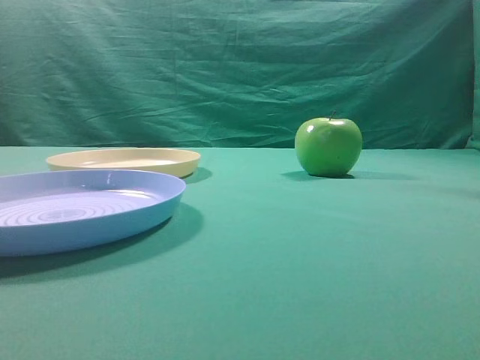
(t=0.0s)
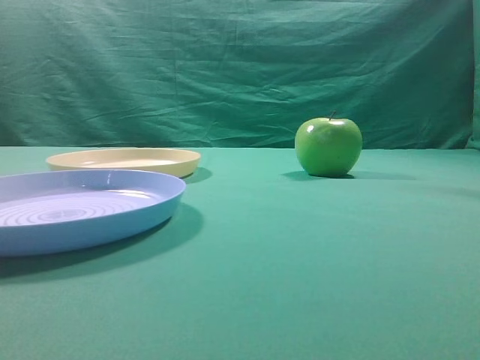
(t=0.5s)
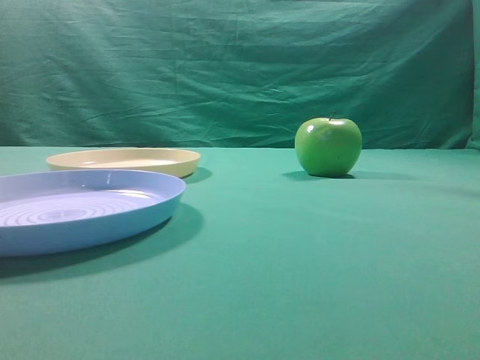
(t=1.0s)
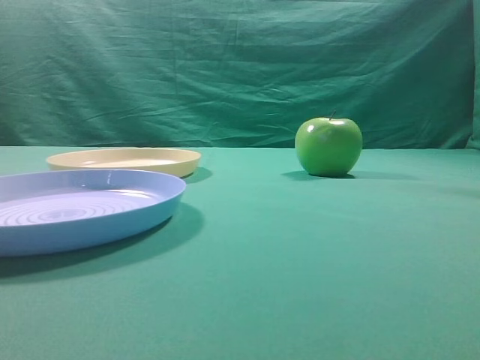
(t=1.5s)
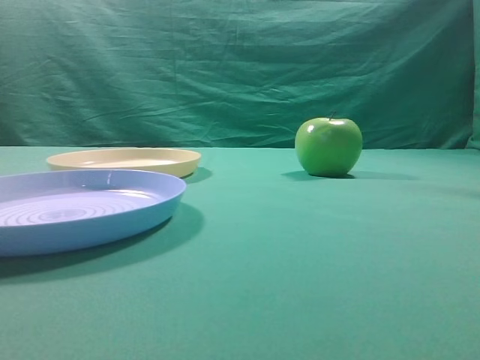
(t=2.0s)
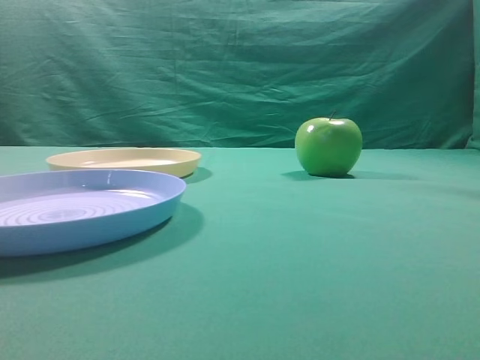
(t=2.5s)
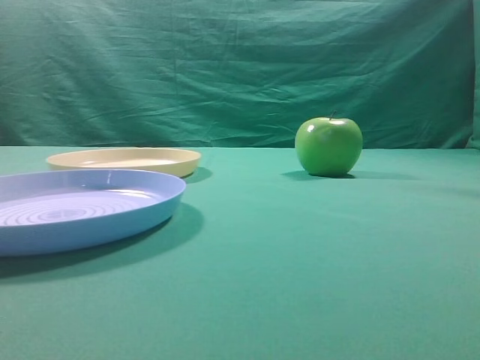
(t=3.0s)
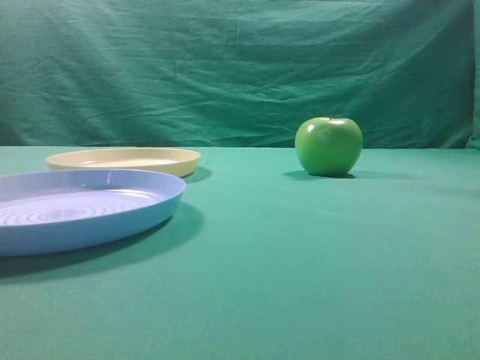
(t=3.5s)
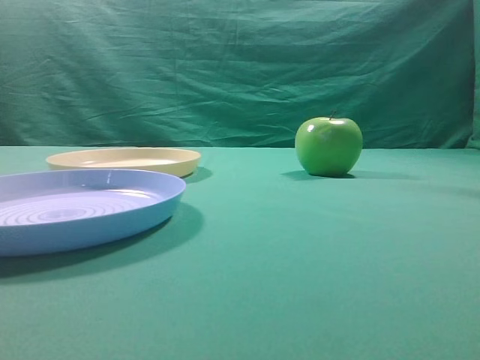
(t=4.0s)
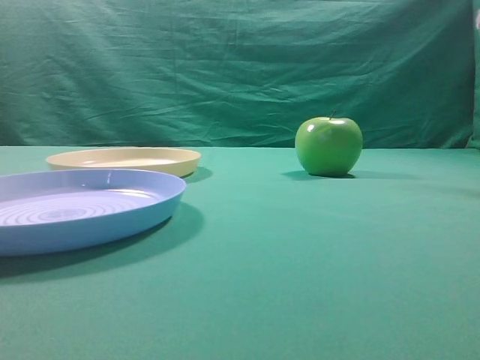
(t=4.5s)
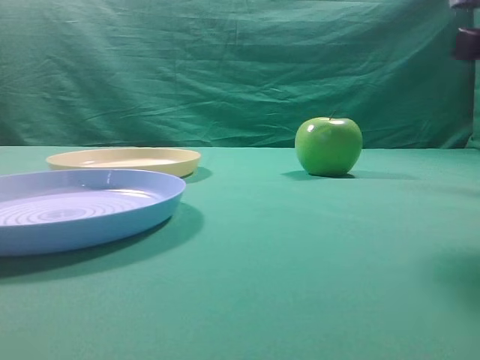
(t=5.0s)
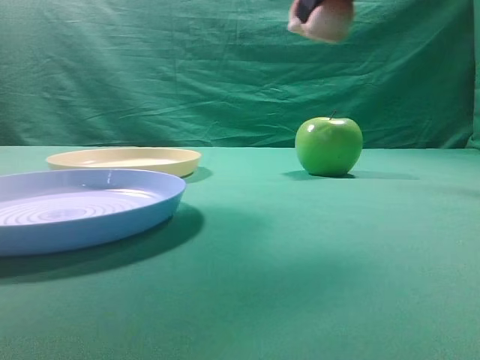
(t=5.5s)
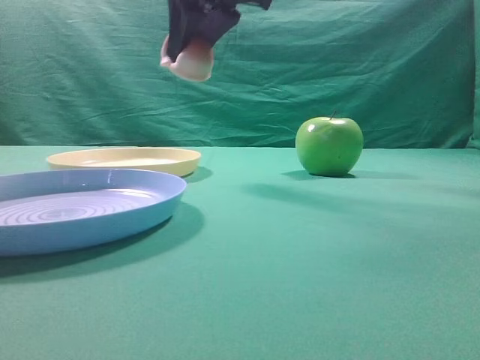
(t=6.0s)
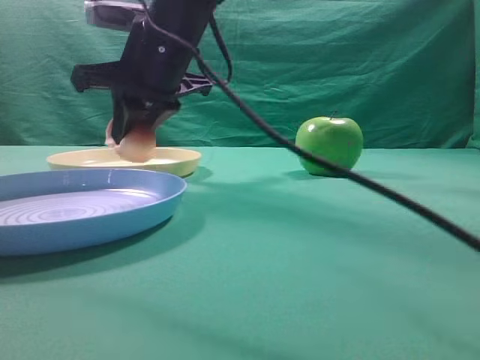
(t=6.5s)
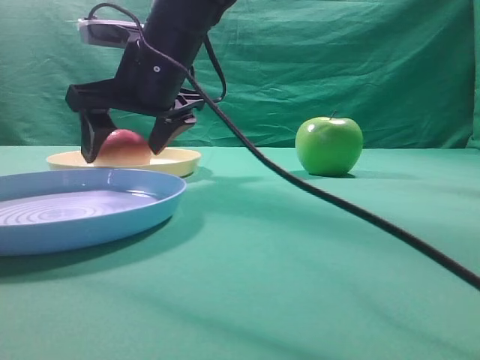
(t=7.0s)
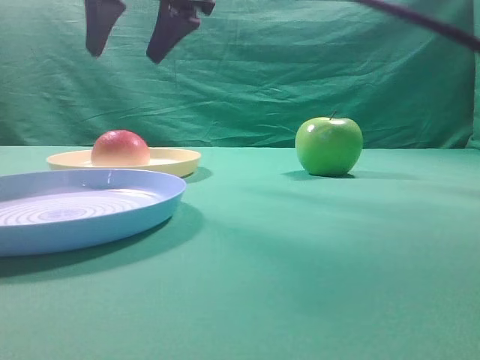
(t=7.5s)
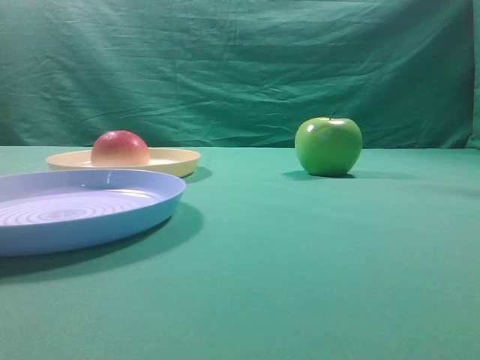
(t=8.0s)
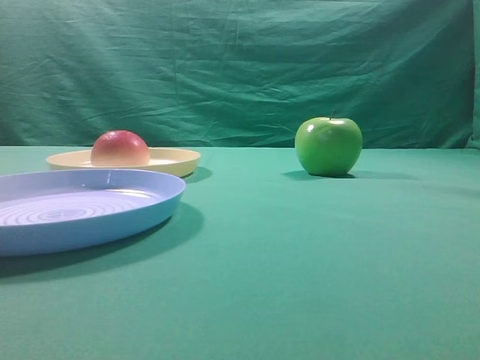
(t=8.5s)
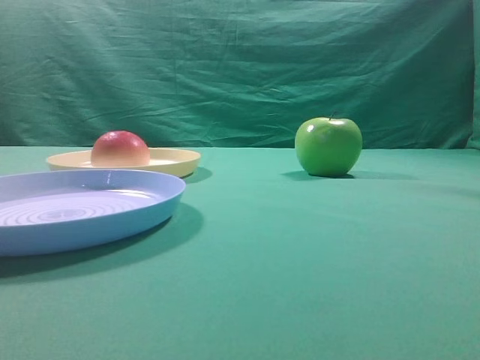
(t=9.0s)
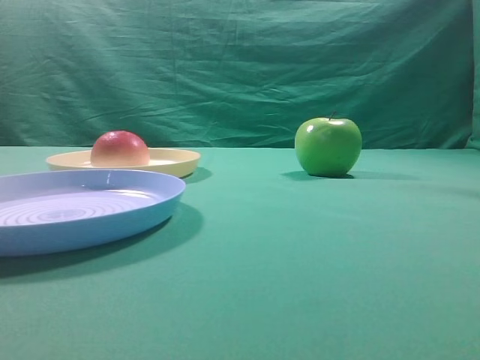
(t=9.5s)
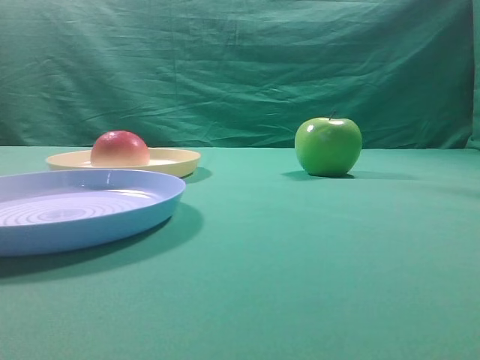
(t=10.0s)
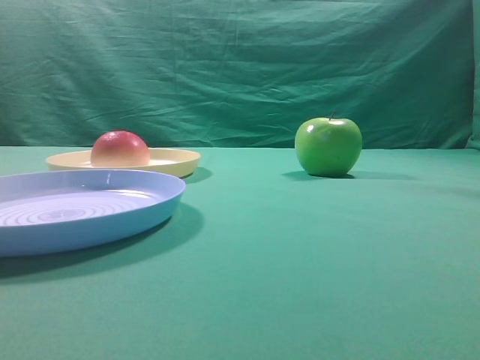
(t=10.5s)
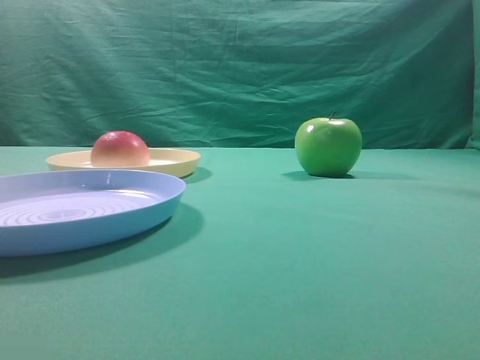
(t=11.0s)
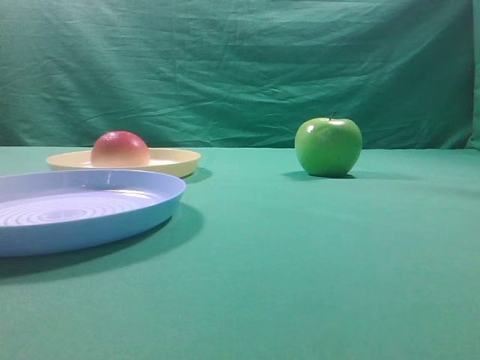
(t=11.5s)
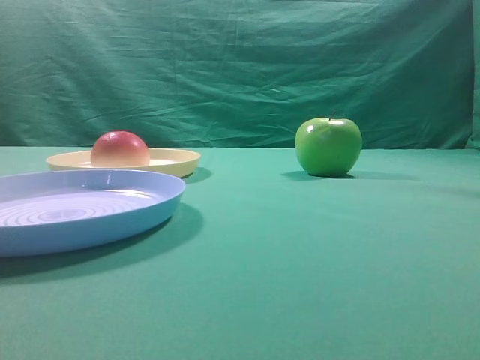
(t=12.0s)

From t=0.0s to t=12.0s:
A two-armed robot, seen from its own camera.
Step, from t=5.5s to t=7.0s: Place the picked object on the yellow plate.
